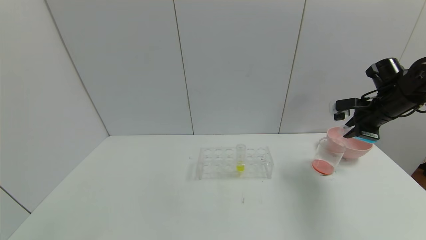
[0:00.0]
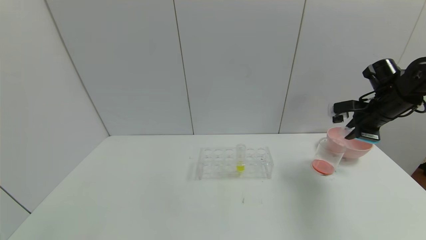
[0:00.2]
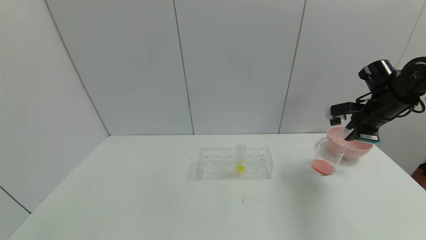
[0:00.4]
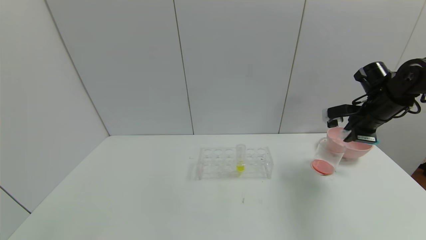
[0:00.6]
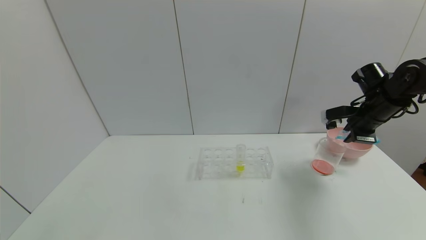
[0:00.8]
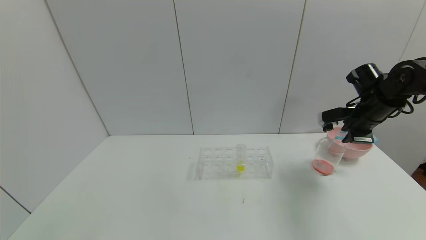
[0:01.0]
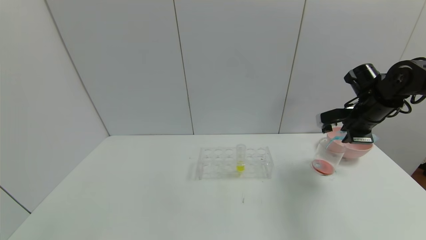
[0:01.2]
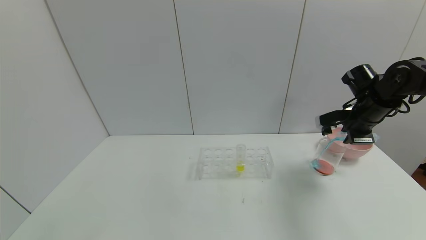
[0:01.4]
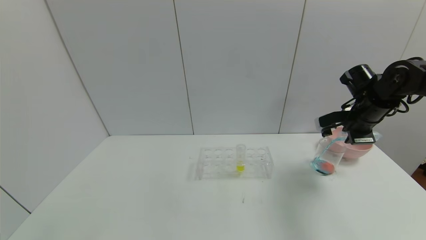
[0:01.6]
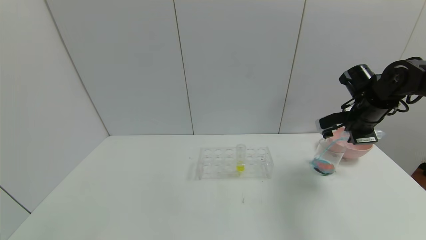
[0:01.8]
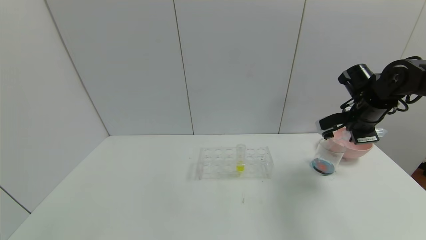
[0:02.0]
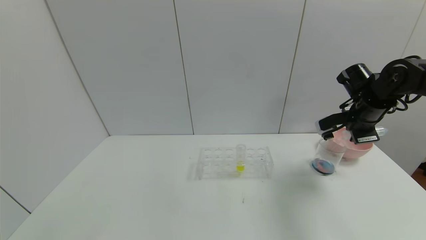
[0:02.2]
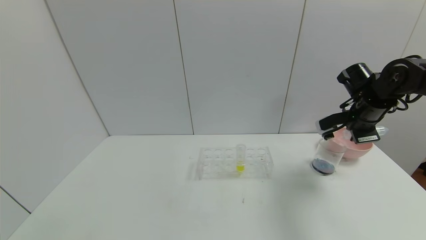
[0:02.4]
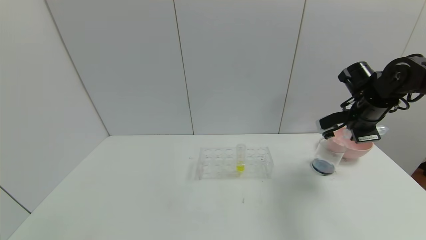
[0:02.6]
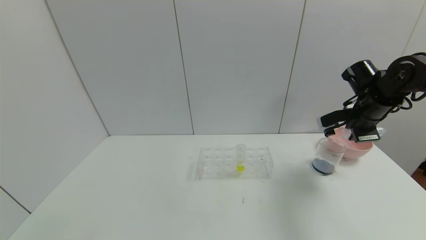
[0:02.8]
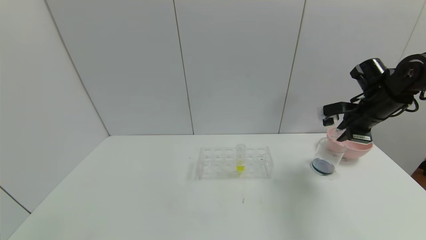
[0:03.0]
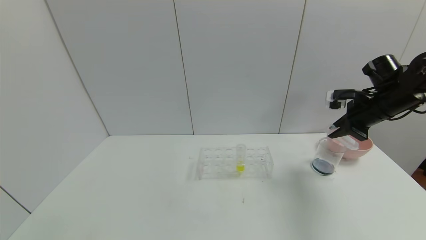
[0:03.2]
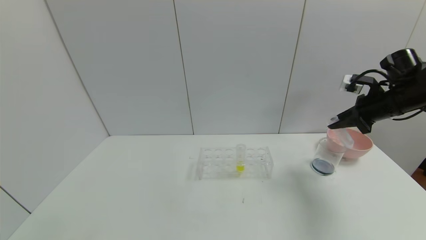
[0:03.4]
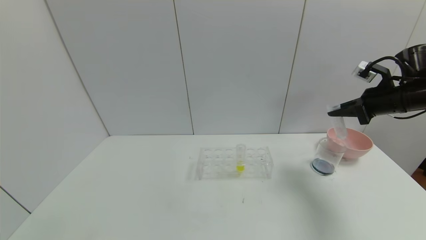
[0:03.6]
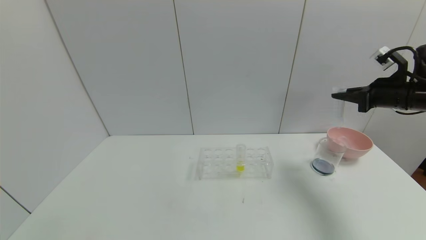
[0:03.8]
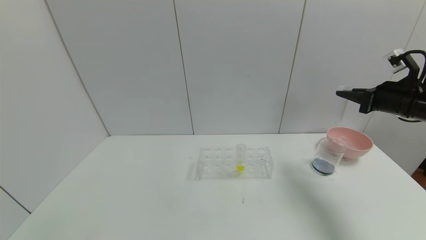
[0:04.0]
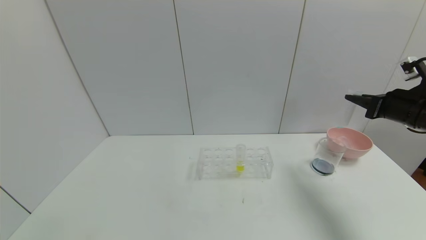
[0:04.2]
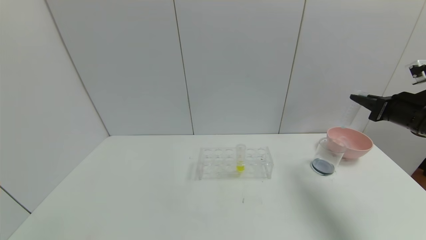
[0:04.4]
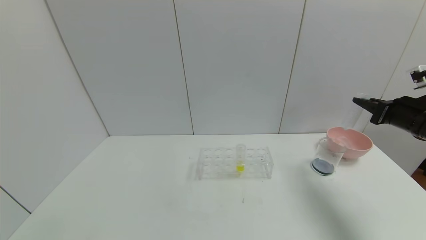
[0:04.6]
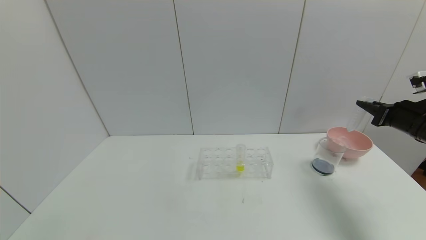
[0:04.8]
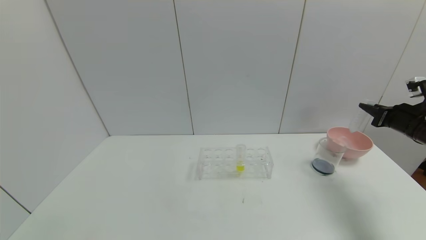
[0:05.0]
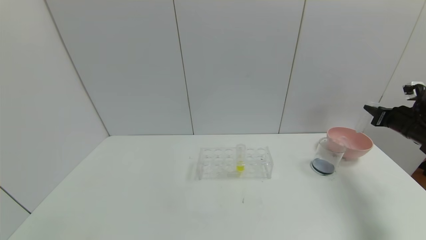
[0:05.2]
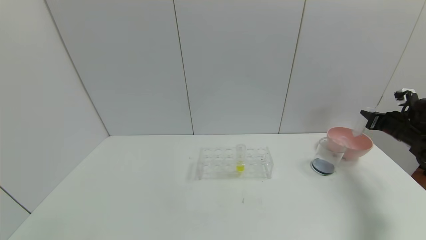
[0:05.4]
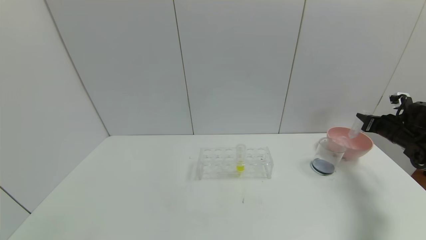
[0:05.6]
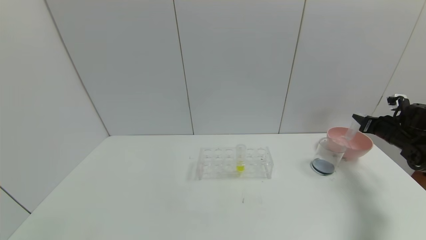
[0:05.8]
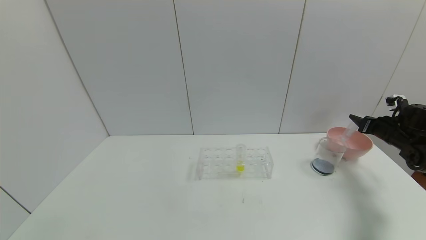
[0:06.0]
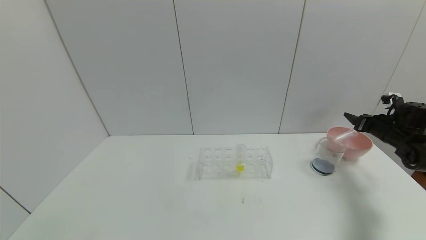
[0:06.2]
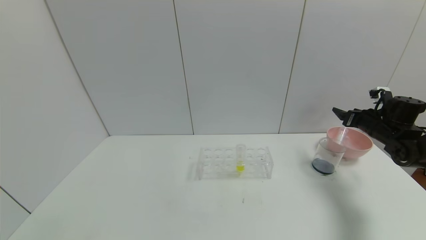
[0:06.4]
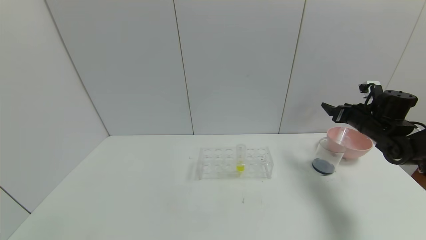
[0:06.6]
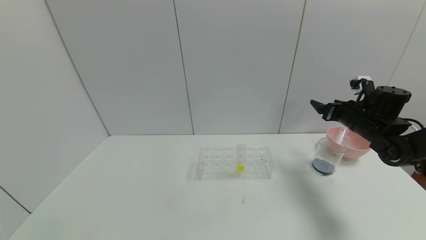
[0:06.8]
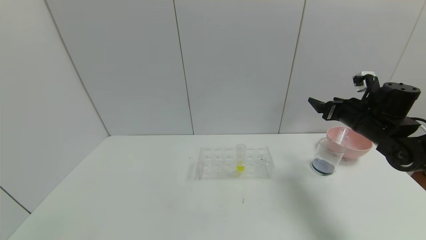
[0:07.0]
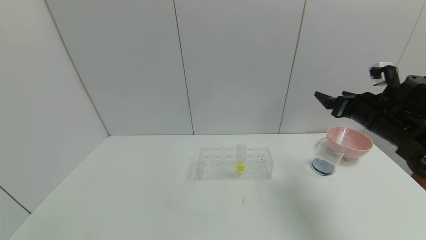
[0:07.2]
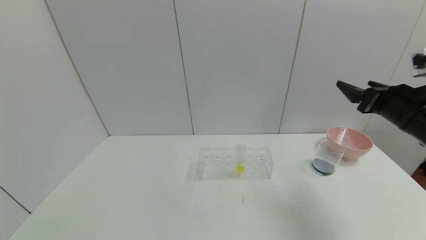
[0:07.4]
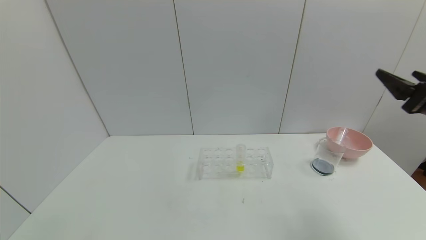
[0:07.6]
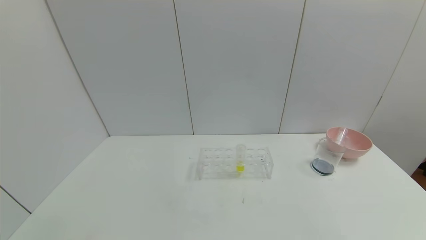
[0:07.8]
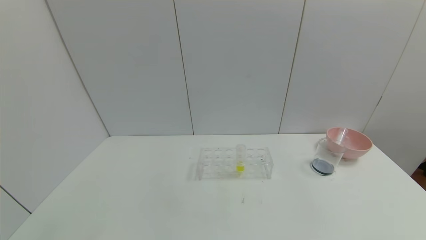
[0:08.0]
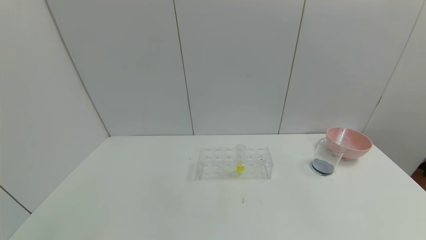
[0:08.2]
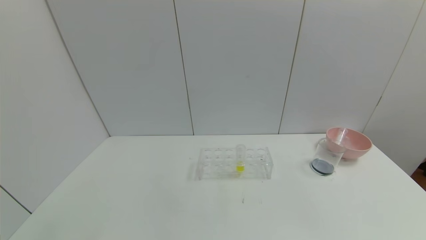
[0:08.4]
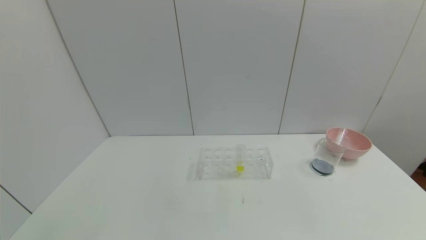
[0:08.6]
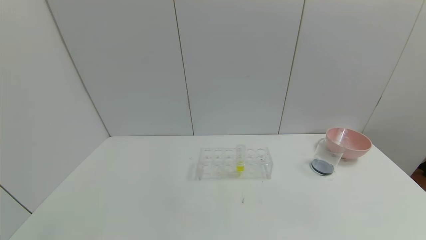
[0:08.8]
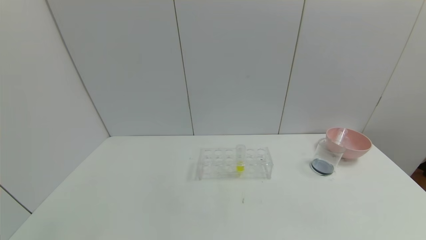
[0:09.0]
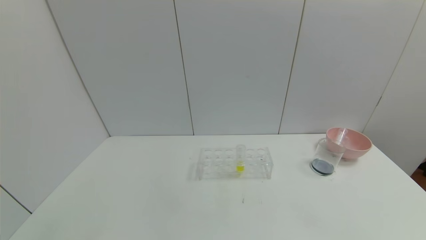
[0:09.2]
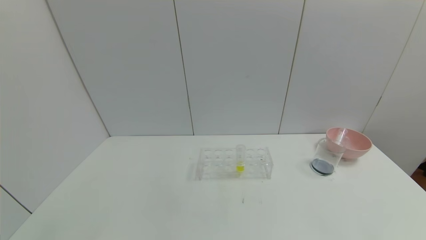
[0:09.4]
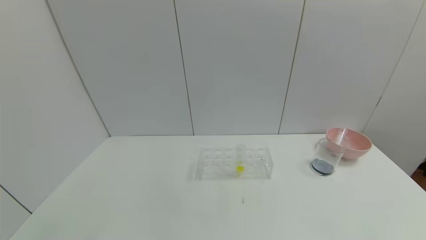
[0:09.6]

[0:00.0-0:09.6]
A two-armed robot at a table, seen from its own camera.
Task of the whole recording: pick up the test tube with red pigment and the test tube with blue pigment by grippers and pour them into the container.
Step, 0:00.0 to 0:02.4: Pour the blue reagent into the graduated cylinder with the right gripper.
Step, 0:02.6 to 0:06.8: Place the test tube into the bowl with the right gripper.
0:03.2 to 0:04.8: The right gripper shifts approximately 5 cm to the right.
0:04.8 to 0:06.4: The right gripper heads forward and downward, covering about 10 cm, and opens.
0:06.4 to 0:08.0: The right gripper goes some 35 cm backward.
